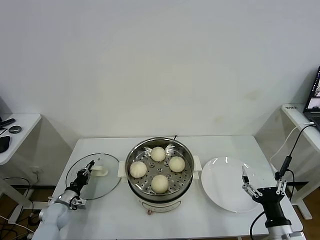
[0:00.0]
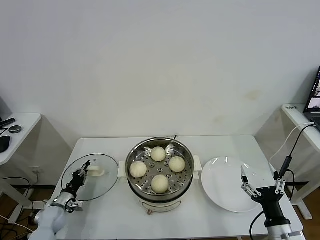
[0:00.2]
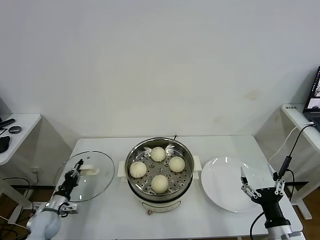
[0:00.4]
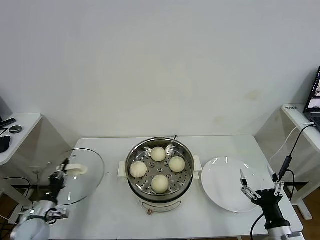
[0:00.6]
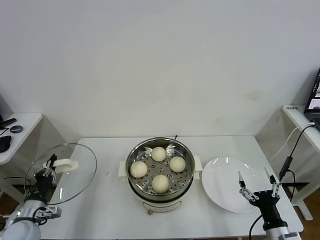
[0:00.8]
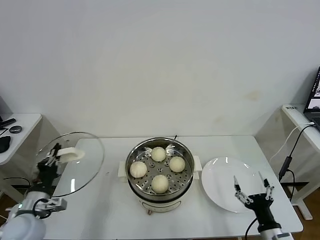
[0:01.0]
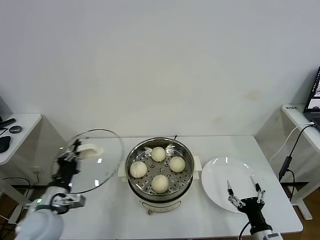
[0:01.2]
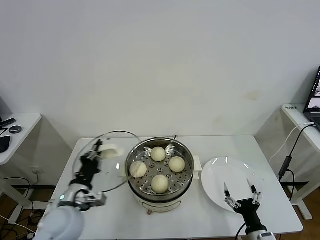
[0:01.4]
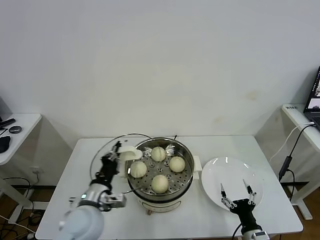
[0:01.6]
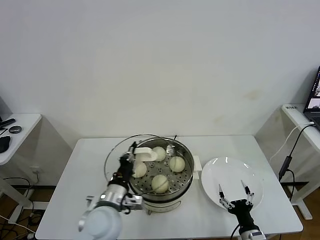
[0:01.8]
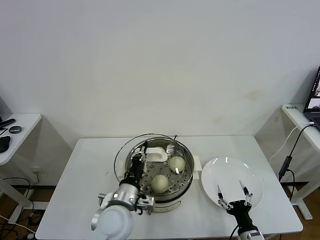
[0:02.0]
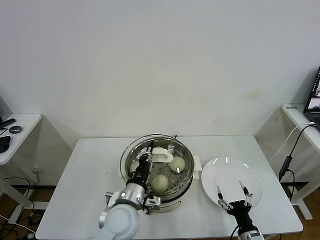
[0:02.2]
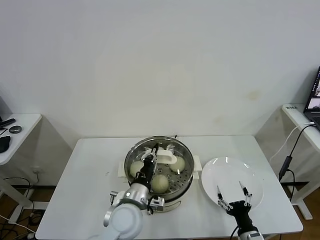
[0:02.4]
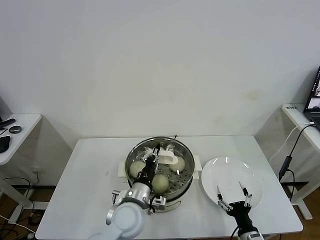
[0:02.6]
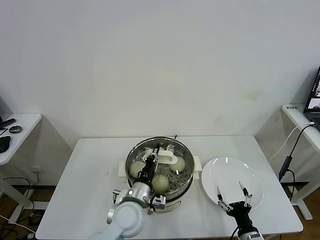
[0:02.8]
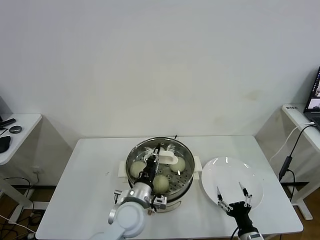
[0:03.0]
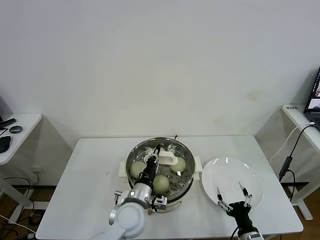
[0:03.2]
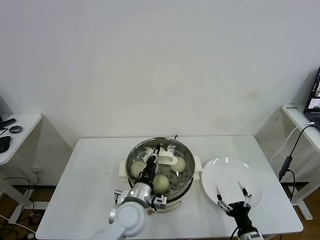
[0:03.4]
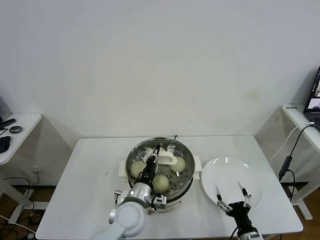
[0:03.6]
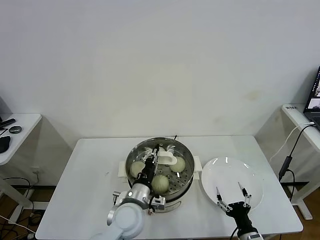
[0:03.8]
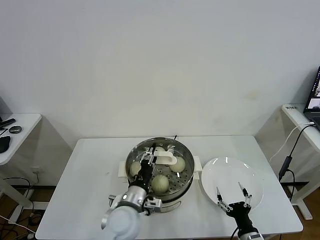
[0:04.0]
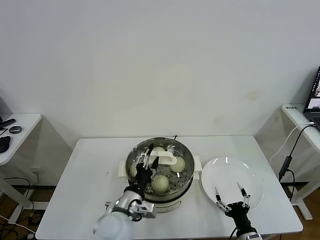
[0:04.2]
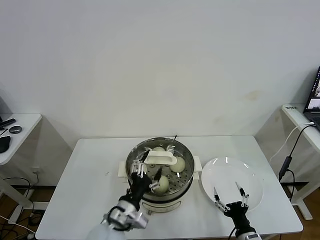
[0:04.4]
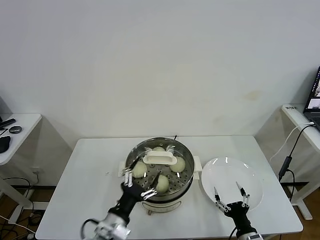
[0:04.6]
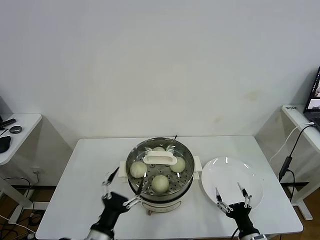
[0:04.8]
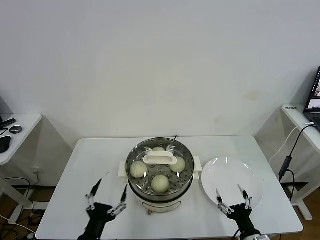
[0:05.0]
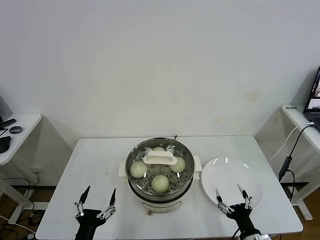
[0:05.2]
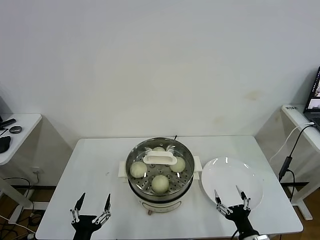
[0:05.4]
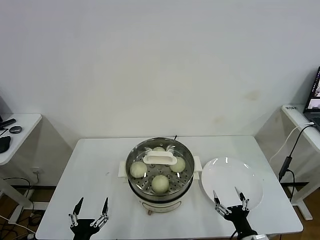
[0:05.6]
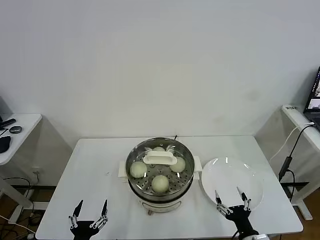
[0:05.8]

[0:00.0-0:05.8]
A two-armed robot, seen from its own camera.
Task of the whole recording: take steamed baozi put them in steamer.
Step, 0:00.4 to 0:04.4: Place the pot lid on the steamer with left gripper.
0:00.0 to 0:01.4: The left gripper heads upward, to the right and backward, covering approximately 30 cm. The right gripper goes about 5 cm downward.
0:01.4 to 0:02.8: The left gripper is displaced to the right by about 20 cm.
0:02.8 to 0:04.4: The left gripper shifts some 5 cm backward, and opens its fingers.
0:04.4 to 0:05.8: The left gripper shifts roughly 20 cm backward, to the left and downward.
